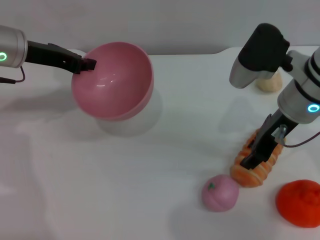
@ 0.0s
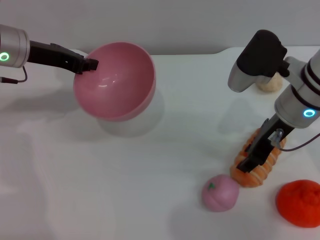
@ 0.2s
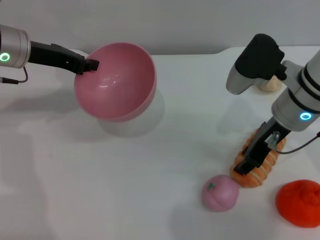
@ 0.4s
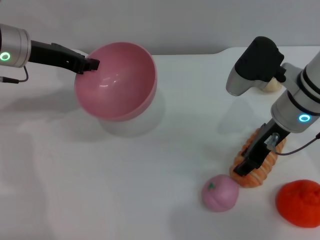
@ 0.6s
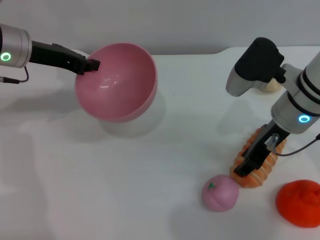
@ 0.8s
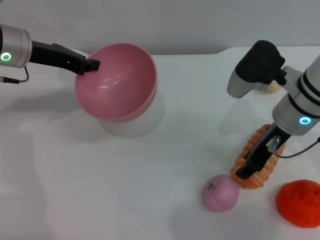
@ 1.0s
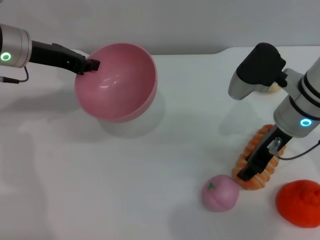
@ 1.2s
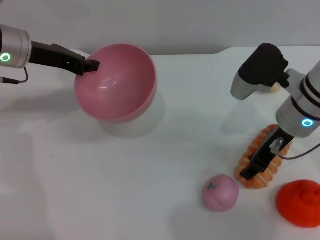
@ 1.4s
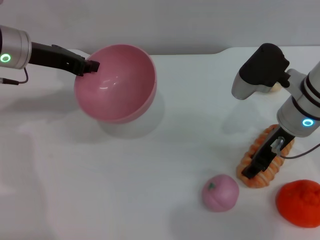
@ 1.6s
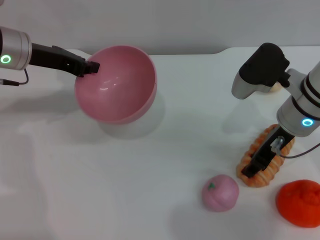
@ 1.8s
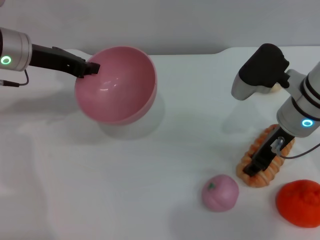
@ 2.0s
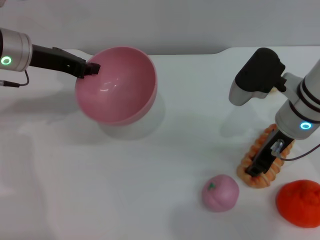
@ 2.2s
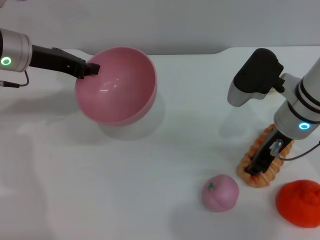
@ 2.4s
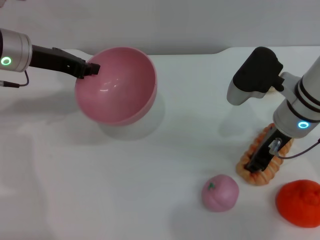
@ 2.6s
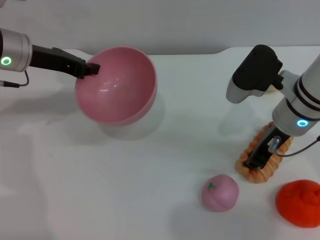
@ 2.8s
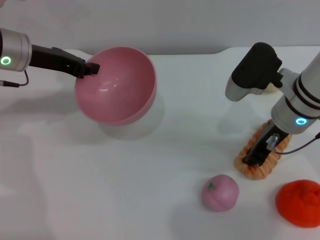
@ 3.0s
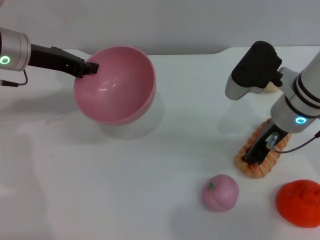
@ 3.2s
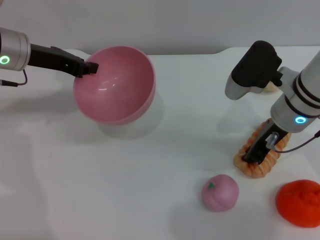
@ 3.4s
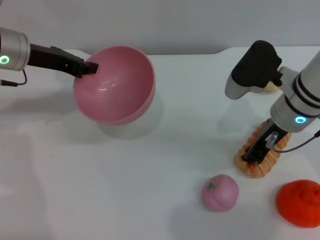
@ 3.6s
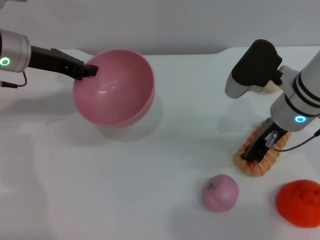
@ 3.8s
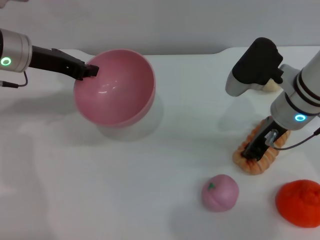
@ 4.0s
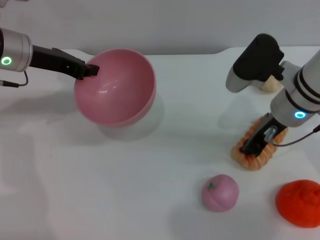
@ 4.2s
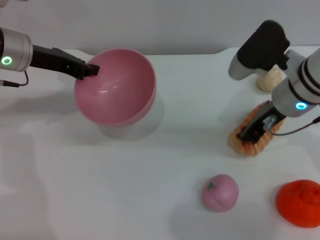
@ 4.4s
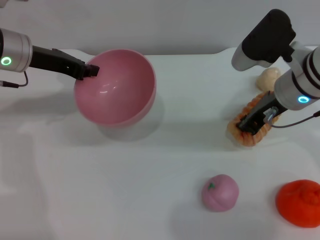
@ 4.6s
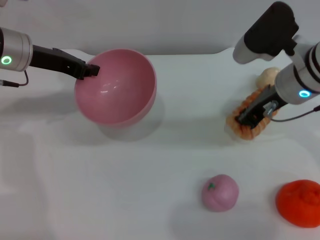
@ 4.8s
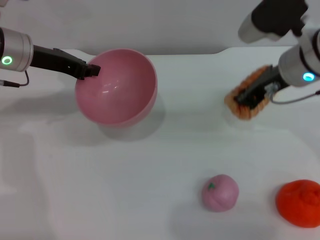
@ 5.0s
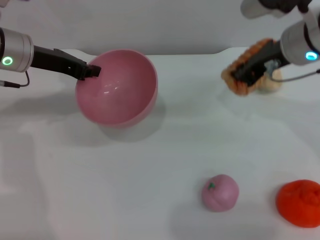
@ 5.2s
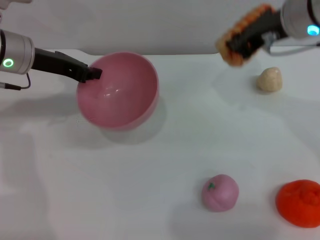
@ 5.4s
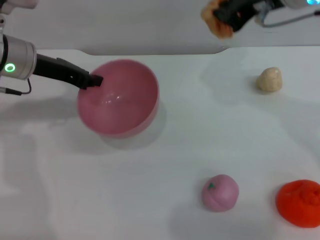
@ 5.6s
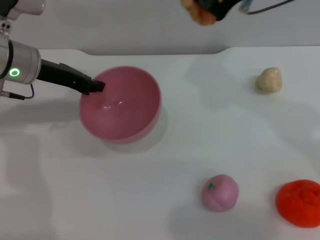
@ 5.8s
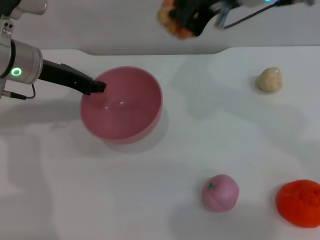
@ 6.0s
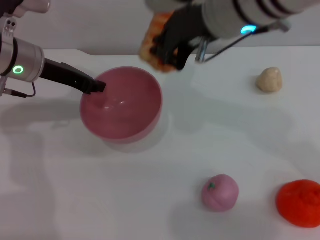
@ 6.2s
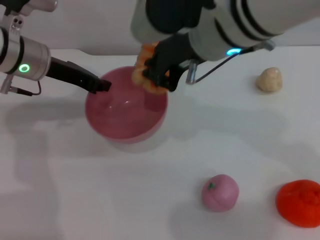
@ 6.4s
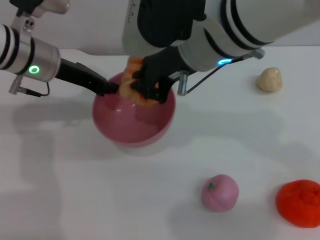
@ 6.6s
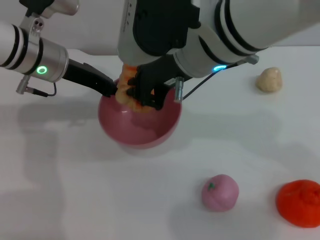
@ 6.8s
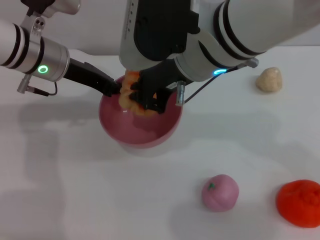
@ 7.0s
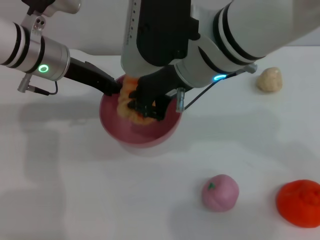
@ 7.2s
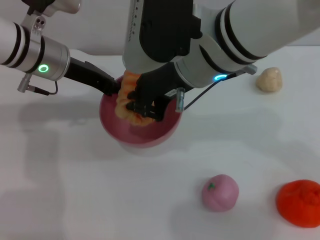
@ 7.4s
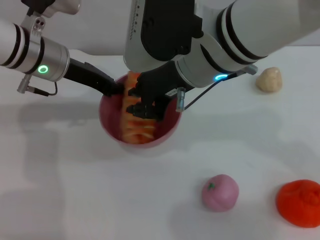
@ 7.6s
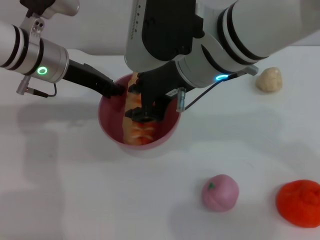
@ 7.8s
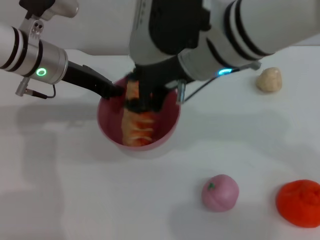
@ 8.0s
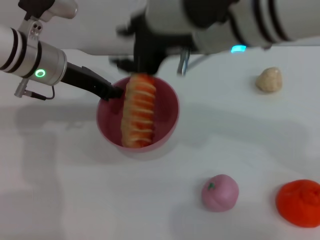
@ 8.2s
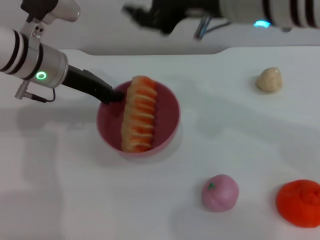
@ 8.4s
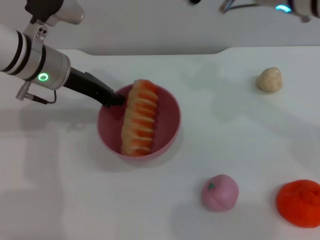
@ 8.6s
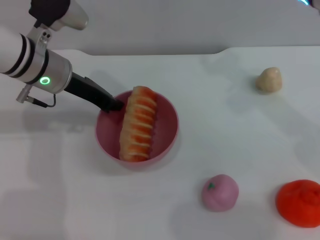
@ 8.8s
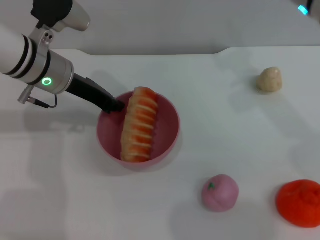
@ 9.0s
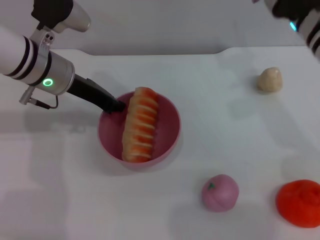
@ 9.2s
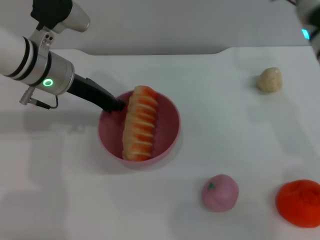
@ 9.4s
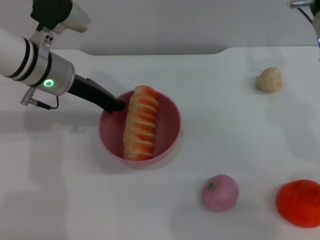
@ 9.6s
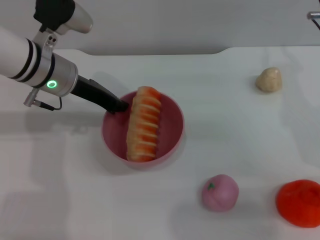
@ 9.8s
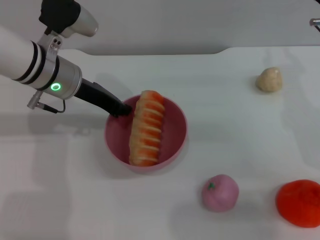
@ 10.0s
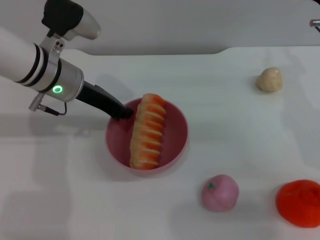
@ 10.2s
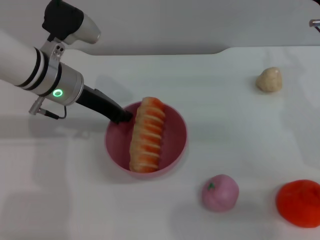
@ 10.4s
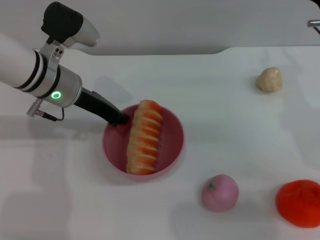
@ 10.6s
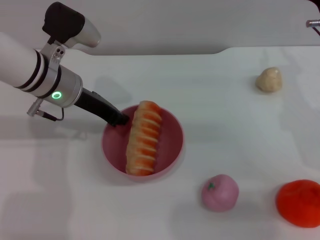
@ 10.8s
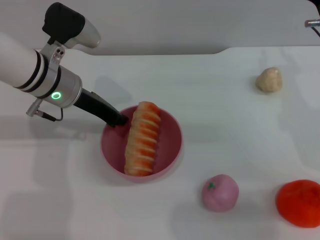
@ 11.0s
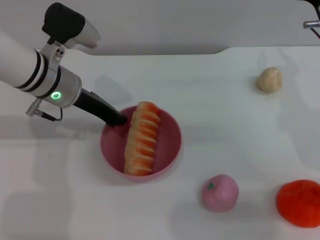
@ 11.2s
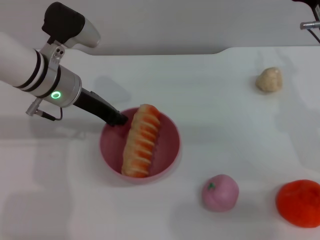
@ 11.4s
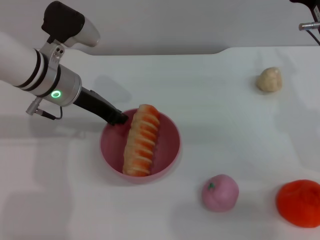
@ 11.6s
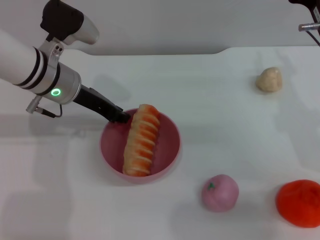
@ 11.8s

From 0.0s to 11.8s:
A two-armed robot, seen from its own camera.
Task of the whole recording: put the bread into the pink bowl and pour it out repeatedly.
Step, from 0.0s to 4.6s: Pick up the bread with the right gripper.
Step, from 5.0s to 8.0s: Place the bread into the bowl.
From 0.0s to 1.4s: The grippers make only small movements.
From 1.4s to 3.0s: The right gripper closes its fingers.
From 3.0s to 4.4s: The grippers stay close to where they were, moving slightly.
From 4.4s to 6.0s: The right gripper moves upward and to the left, about 20 cm.
From 6.0s to 7.4s: The right gripper goes some 5 cm downward.
From 7.4s to 8.8s: The right gripper travels to the right by about 10 cm, and opens its fingers.
From 8.8s to 10.4s: The right gripper goes about 15 cm downward and to the right.
From 10.4s to 11.8s: The two grippers keep their place.

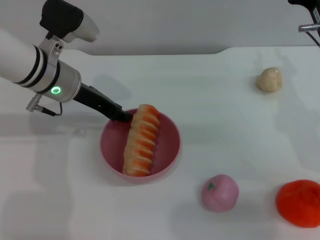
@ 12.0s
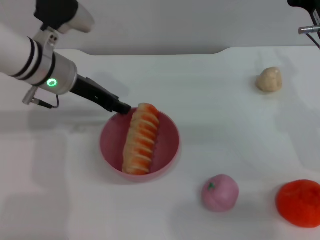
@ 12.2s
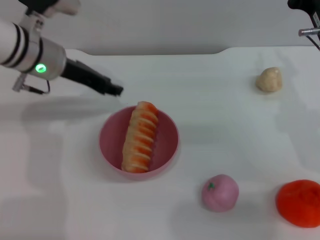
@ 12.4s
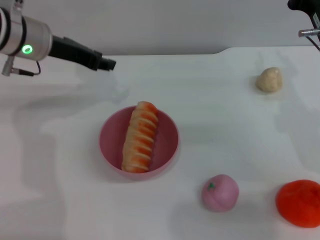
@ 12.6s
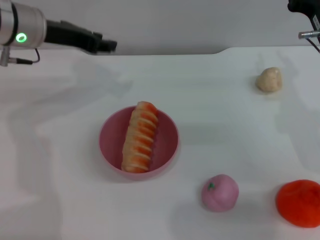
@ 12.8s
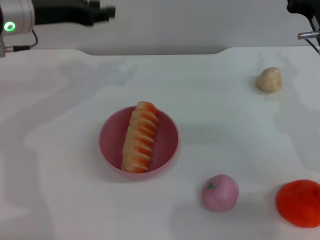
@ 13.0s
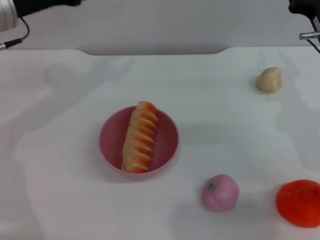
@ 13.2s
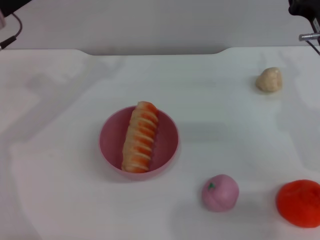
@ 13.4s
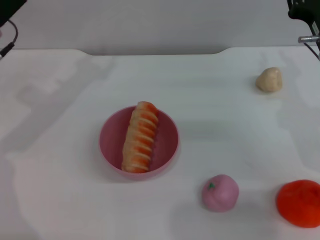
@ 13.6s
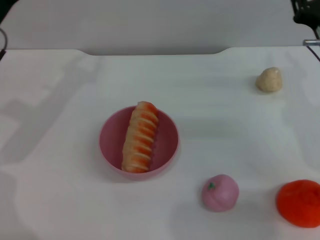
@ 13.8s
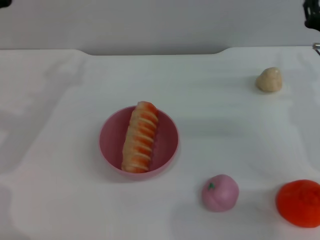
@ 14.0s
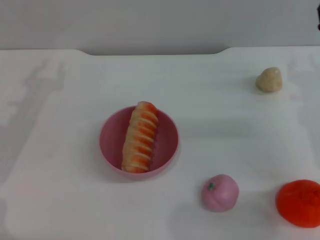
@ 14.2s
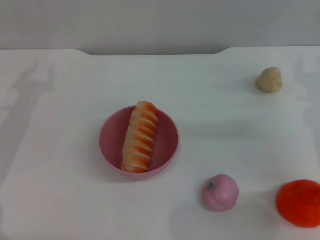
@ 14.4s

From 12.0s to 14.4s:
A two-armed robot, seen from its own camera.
Task of the whole recording: put the bread into the pink bowl and pour it out repeatedly.
From 12.0s to 13.2s: The left gripper shifts approximately 10 cm upward and to the left, and opens its fingers.
From 13.2s to 14.4s: The left gripper heads downward, backward and to the left, covering approximately 15 cm, while the right gripper shifts approximately 5 cm to the right.
